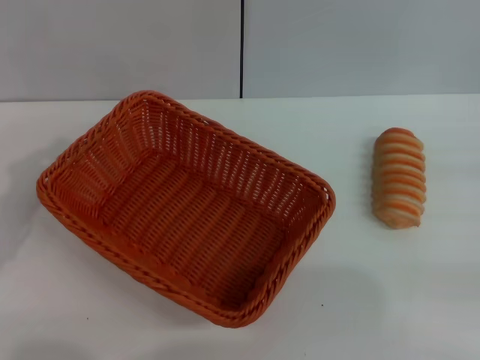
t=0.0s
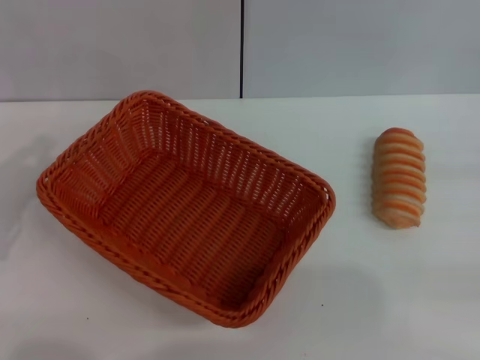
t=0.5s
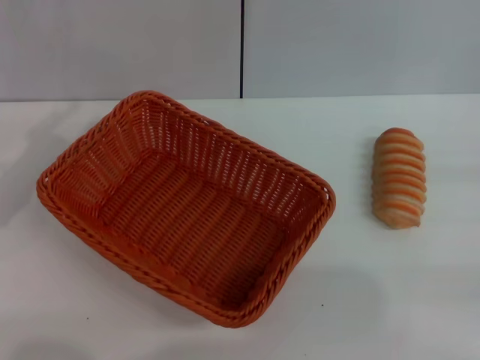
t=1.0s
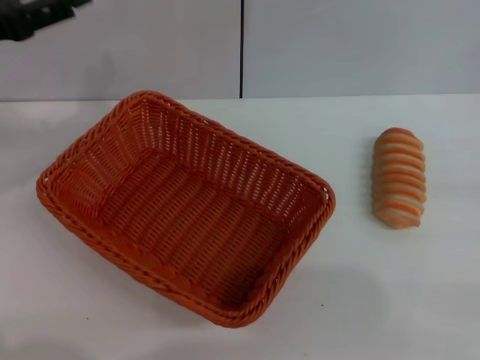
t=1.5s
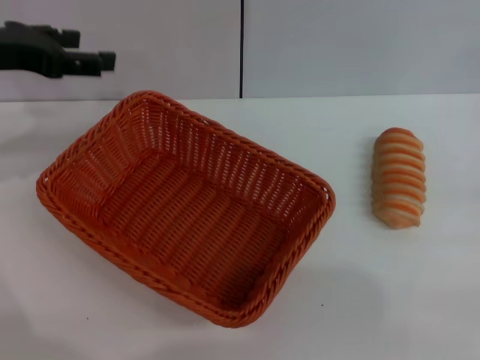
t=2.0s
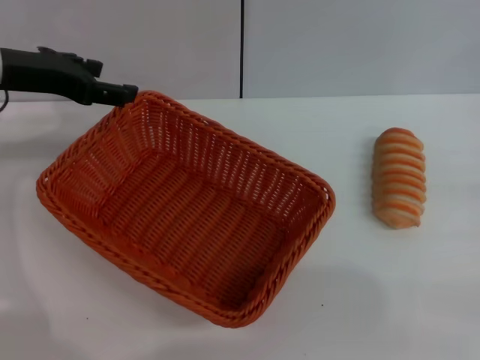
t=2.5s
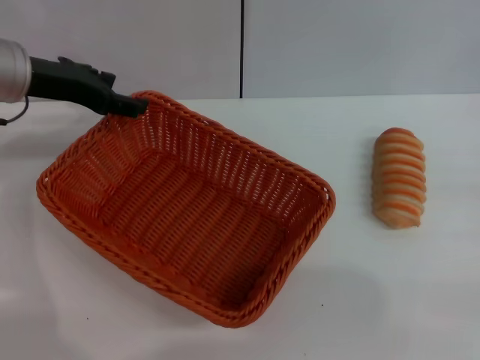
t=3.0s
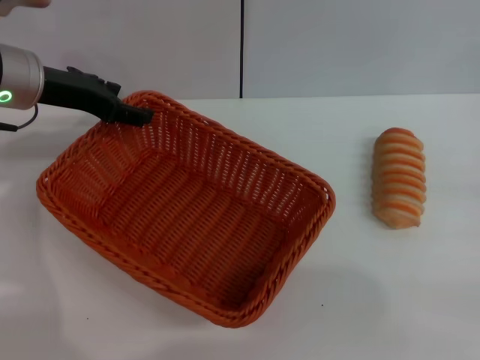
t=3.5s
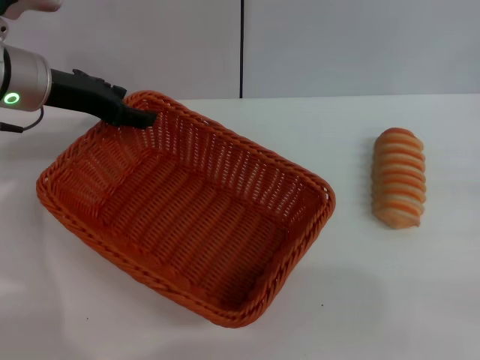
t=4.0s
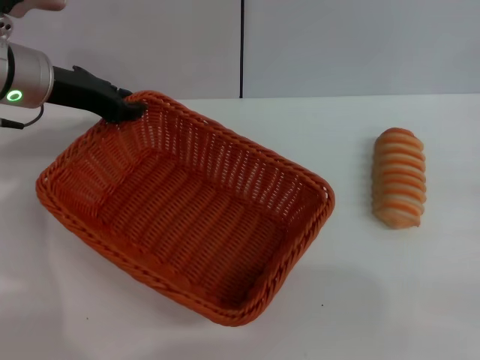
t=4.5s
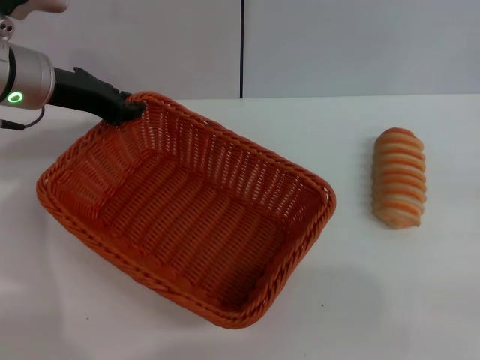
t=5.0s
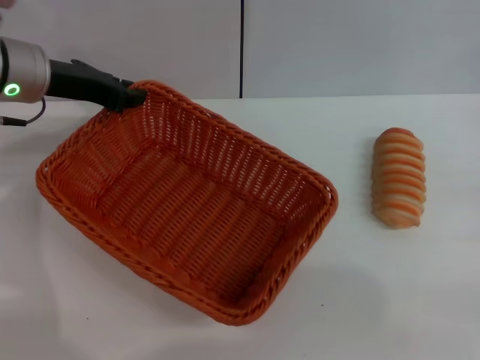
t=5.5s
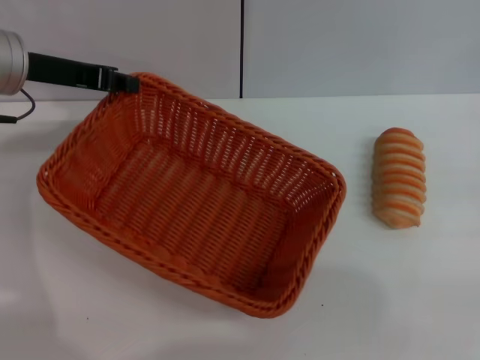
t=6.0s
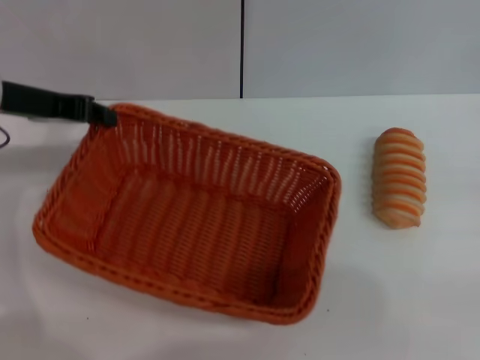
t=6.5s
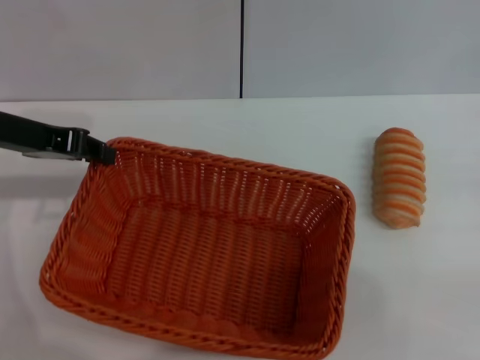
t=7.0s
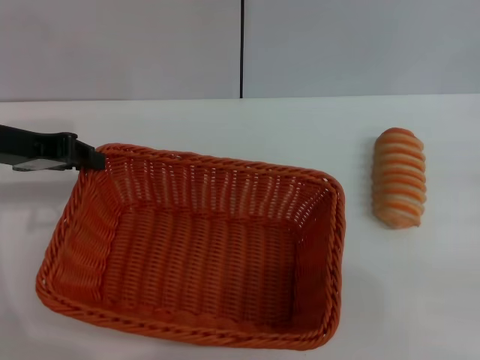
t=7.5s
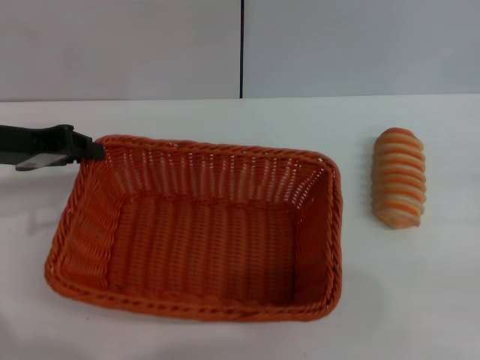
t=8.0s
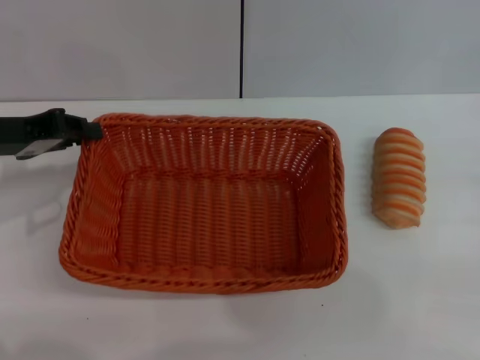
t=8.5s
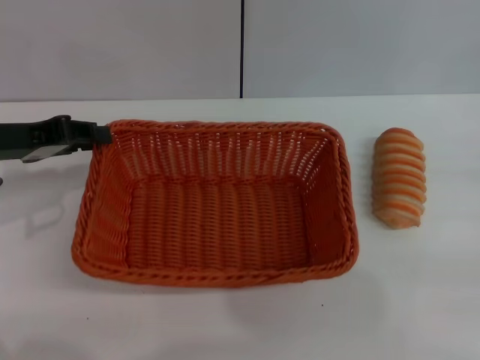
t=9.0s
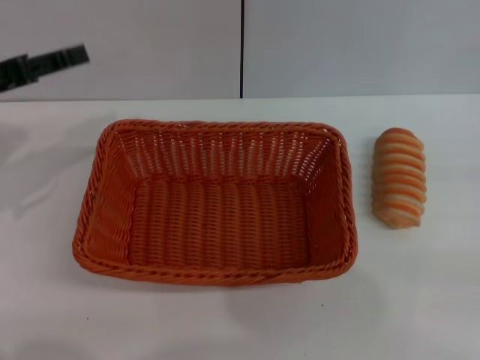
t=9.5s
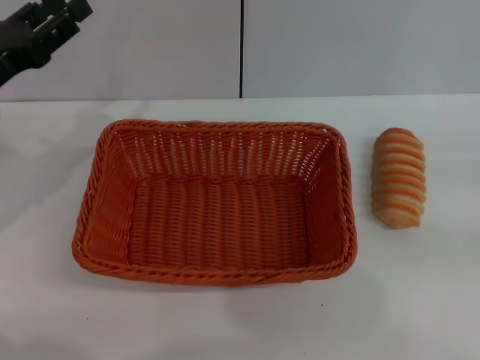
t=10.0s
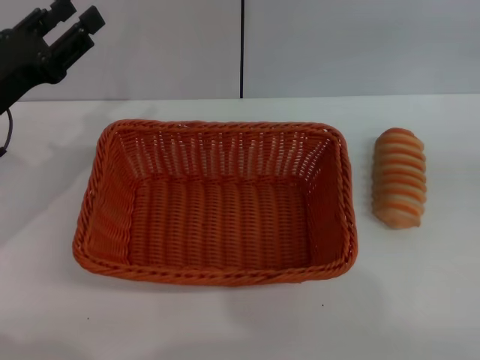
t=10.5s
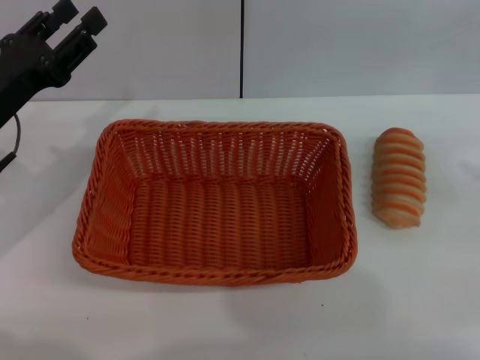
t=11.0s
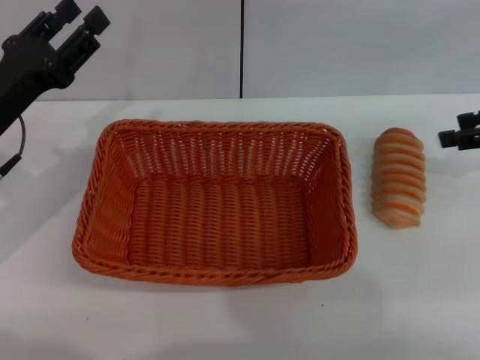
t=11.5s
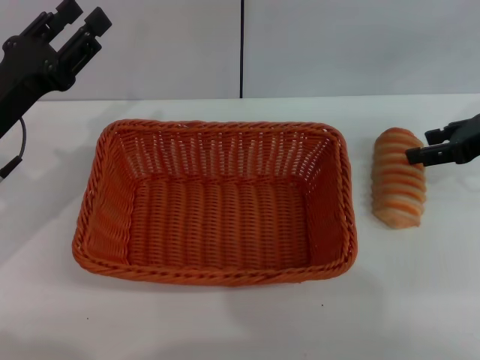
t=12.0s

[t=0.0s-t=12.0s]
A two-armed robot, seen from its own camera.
Step, t=0.0s to t=6.0s: Pick up the light basket with the left gripper.
Step, t=6.5s to t=9.0s: Place the light basket in the center of view with the left gripper.
t=0.0s to t=2.0s: The left gripper goes some 15 cm forward and upward, and opens its fingers.
t=2.0s to t=4.0s: The left gripper goes about 5 cm to the right.
t=4.0s to t=6.0s: The left gripper closes up.
t=6.0s to t=8.0s: The left gripper moves backward, about 5 cm.
t=8.0s to t=10.0s: The left gripper opens, while the right gripper goes approximately 15 cm upward and to the right.
t=10.0s to t=12.0s: The right gripper travels to the left and forward by roughly 25 cm, and opens up.

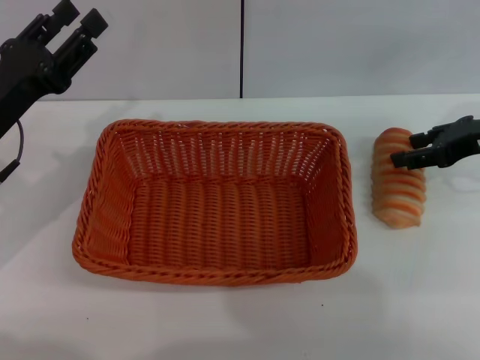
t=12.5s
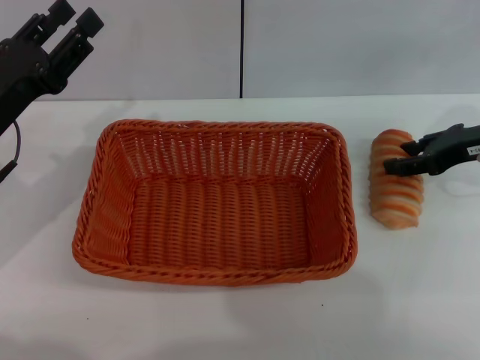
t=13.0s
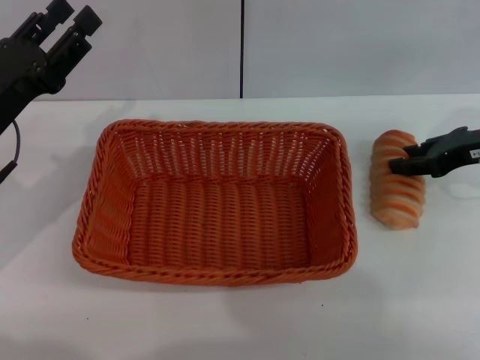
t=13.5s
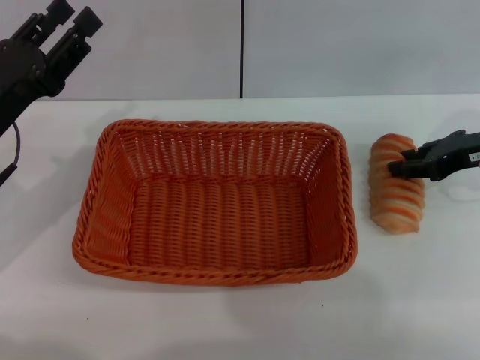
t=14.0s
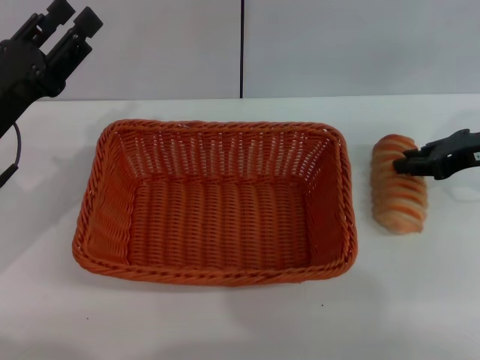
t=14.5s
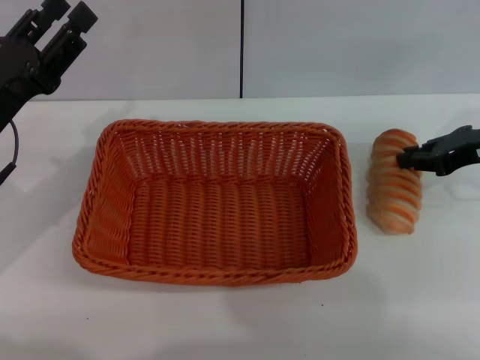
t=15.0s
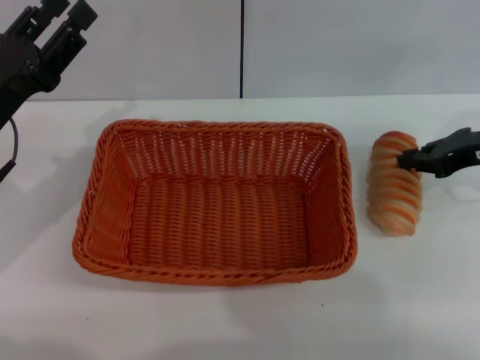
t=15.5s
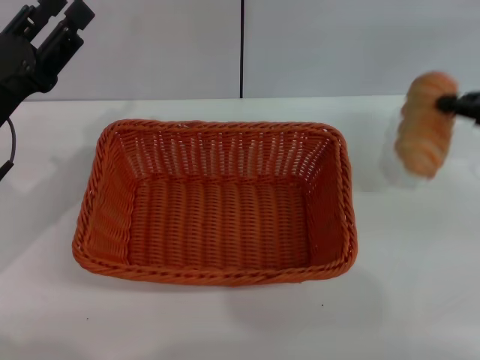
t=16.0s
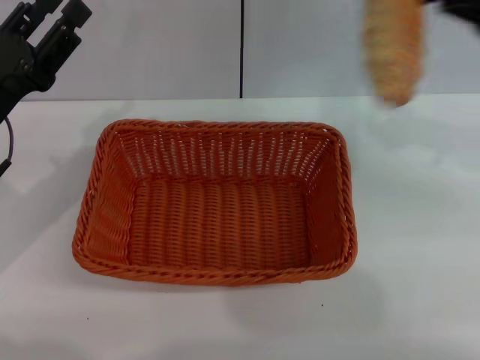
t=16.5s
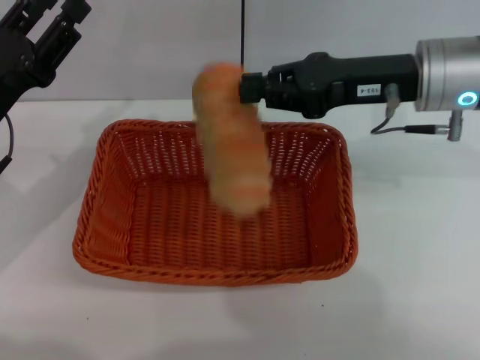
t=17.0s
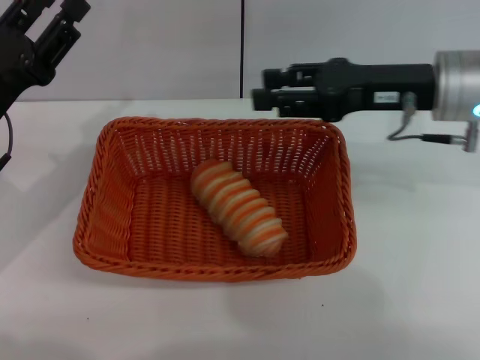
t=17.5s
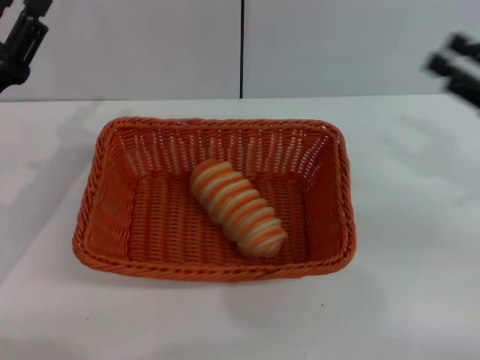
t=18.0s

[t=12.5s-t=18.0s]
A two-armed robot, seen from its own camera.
Step, t=12.5s to t=15.5s: Pick up the long bread with the right gripper.
Step, t=16.0s to t=17.0s: Place the long bread into the light basket with the right gripper.
t=12.5s to t=14.5s: The right gripper closes up.
t=14.5s to t=16.0s: The right gripper moves about 5 cm.
t=16.0s to t=18.0s: The right gripper is displaced backward by approximately 5 cm, reaches some 20 cm to the left, then returns, and opens up.
